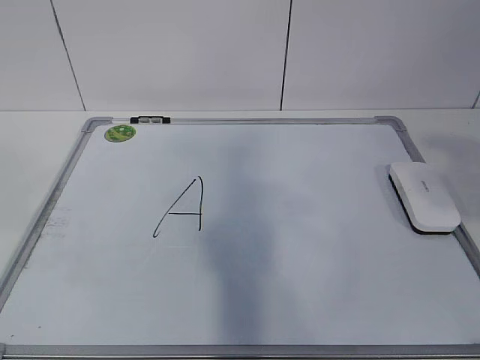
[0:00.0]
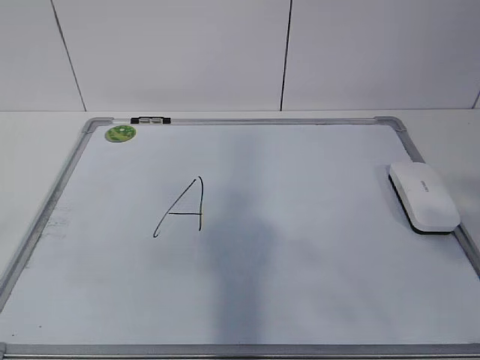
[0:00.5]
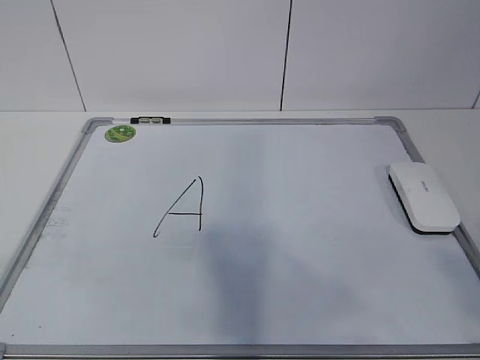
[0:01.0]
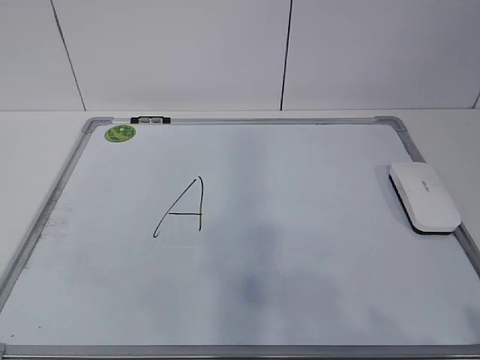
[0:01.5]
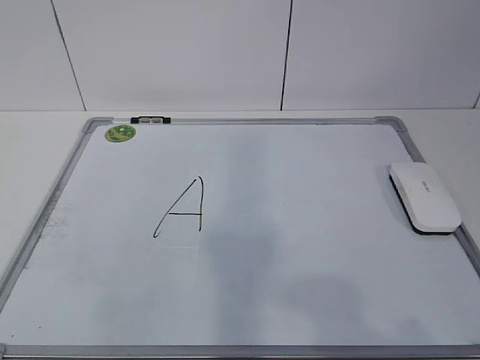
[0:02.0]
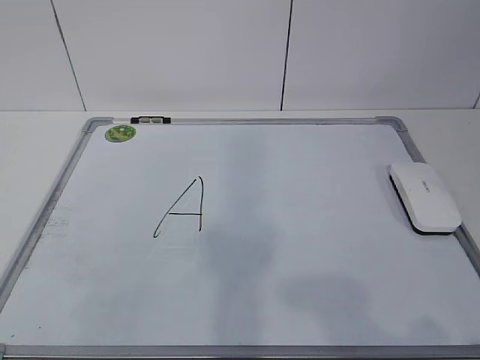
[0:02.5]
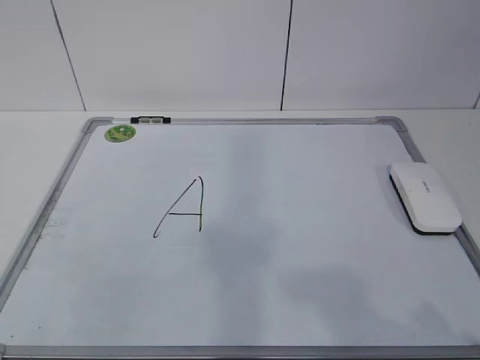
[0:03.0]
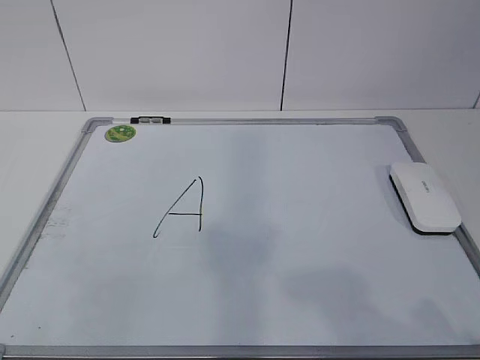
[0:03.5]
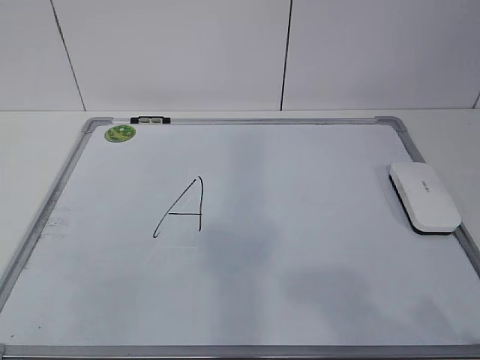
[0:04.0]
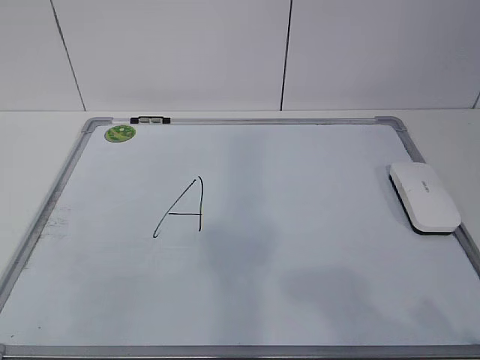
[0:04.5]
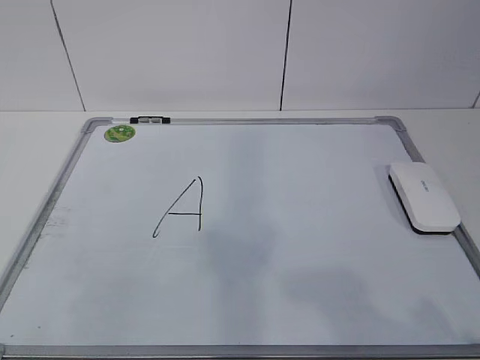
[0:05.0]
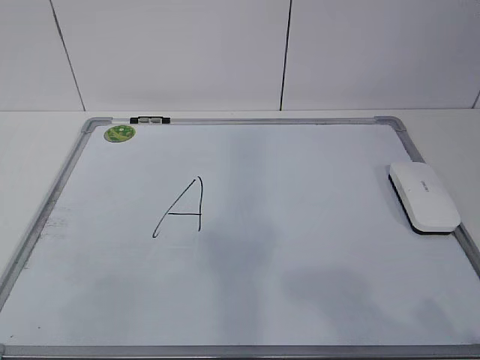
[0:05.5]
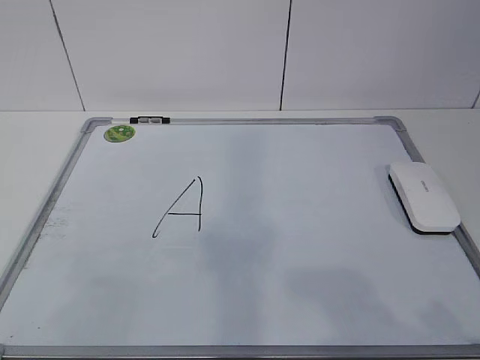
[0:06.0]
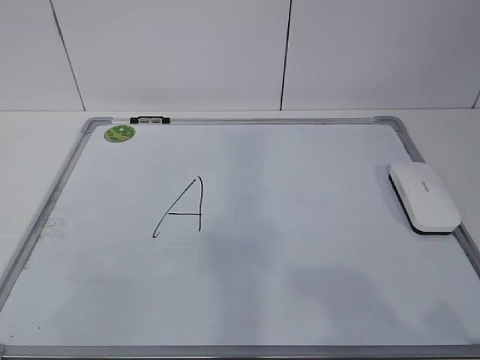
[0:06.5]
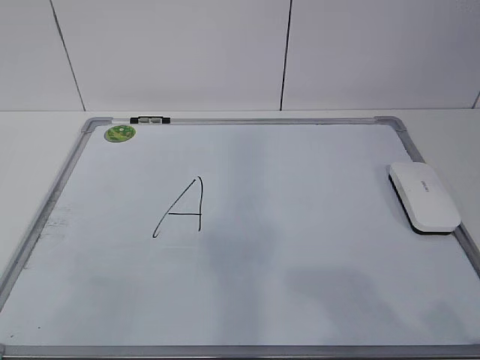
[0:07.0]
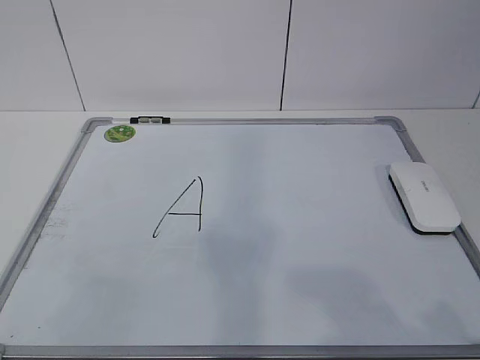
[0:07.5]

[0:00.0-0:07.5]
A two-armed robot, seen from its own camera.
Task of the whole recording: pick up the eraser on the blackboard and erase the letter "a".
0:00.0 to 0:02.0: The right gripper is displaced downward and backward by some 15 cm; the left gripper shifts about 20 cm downward.
